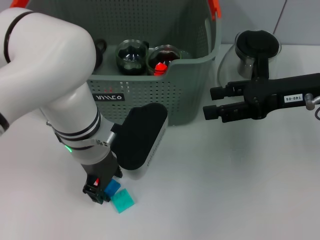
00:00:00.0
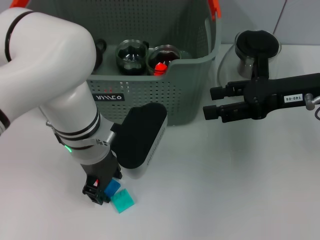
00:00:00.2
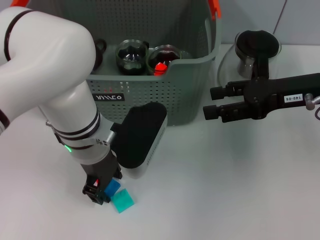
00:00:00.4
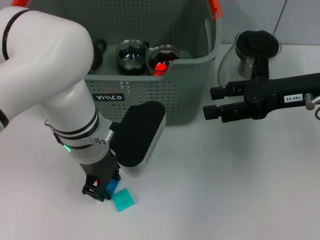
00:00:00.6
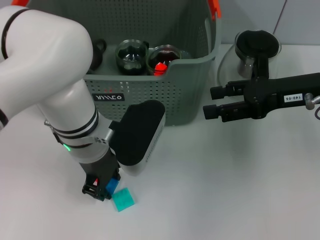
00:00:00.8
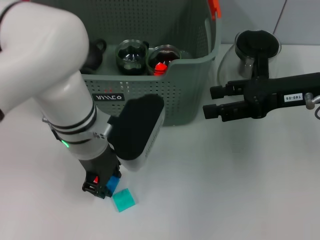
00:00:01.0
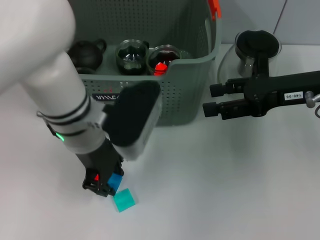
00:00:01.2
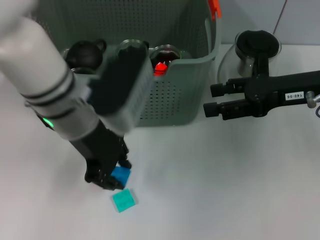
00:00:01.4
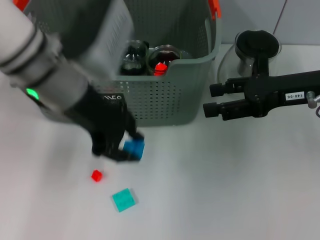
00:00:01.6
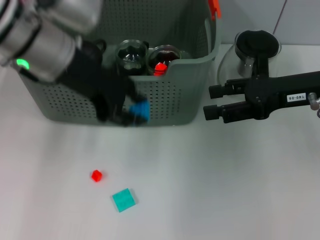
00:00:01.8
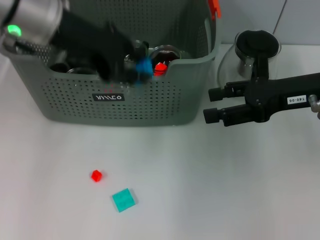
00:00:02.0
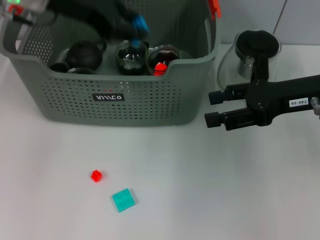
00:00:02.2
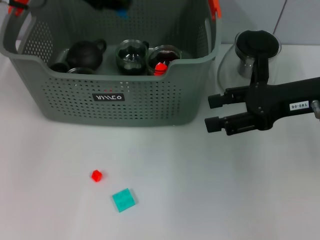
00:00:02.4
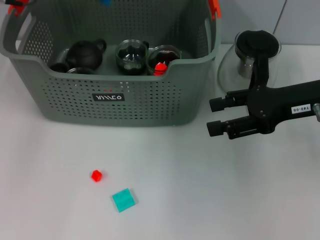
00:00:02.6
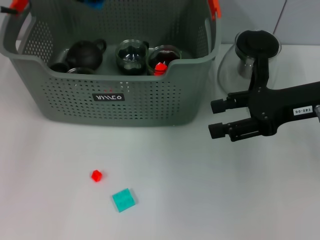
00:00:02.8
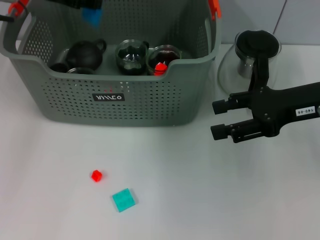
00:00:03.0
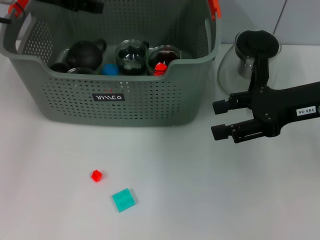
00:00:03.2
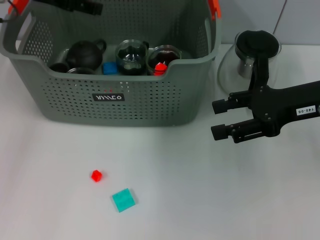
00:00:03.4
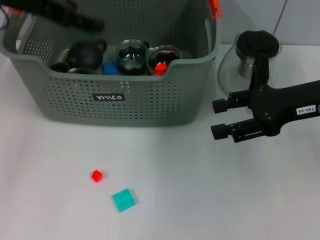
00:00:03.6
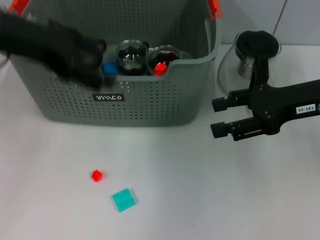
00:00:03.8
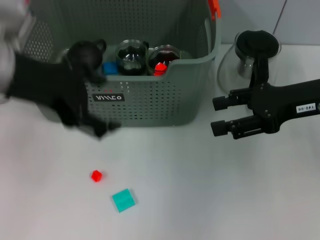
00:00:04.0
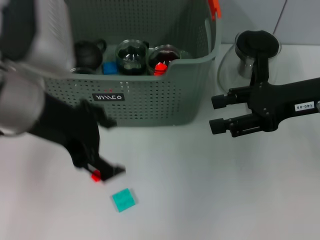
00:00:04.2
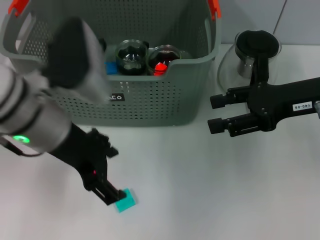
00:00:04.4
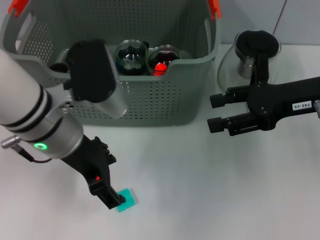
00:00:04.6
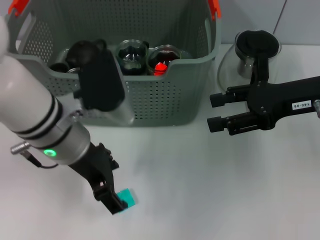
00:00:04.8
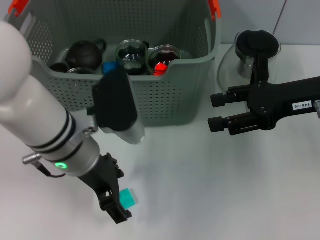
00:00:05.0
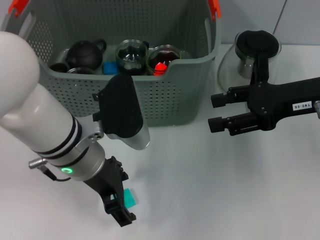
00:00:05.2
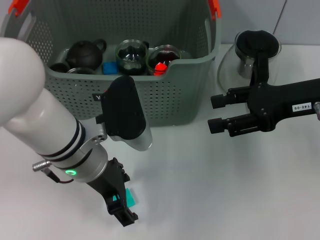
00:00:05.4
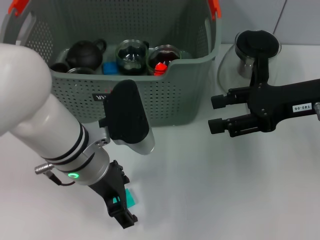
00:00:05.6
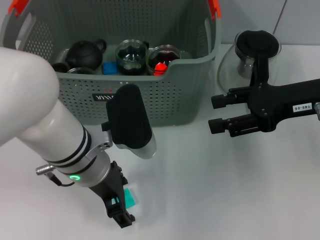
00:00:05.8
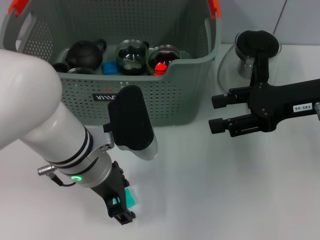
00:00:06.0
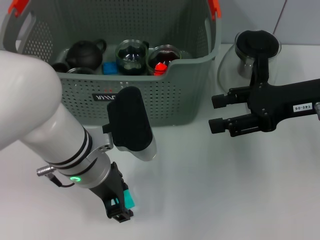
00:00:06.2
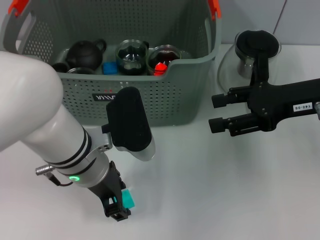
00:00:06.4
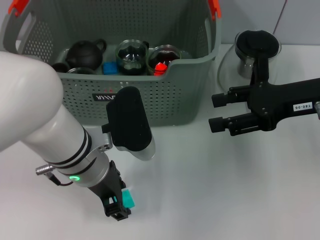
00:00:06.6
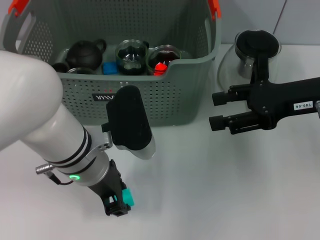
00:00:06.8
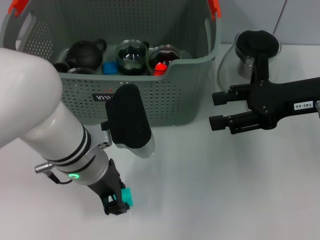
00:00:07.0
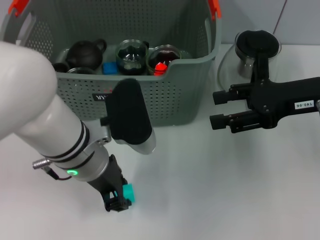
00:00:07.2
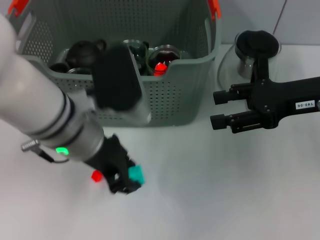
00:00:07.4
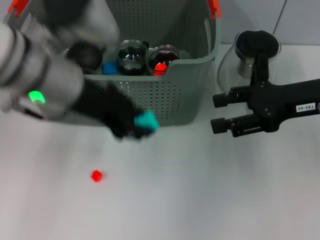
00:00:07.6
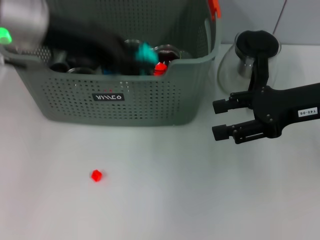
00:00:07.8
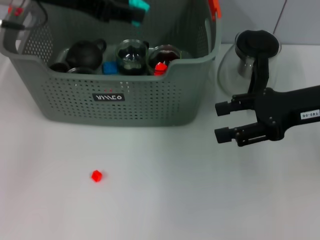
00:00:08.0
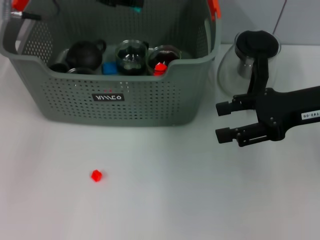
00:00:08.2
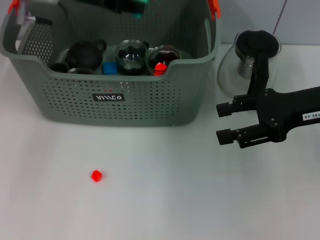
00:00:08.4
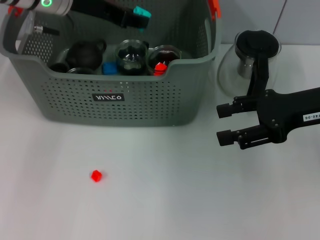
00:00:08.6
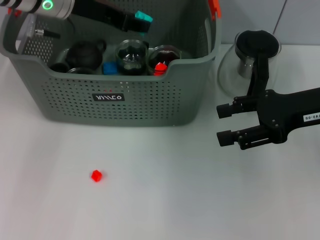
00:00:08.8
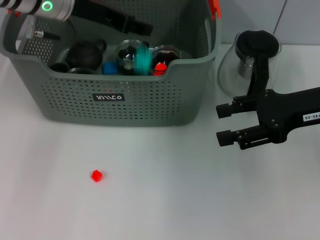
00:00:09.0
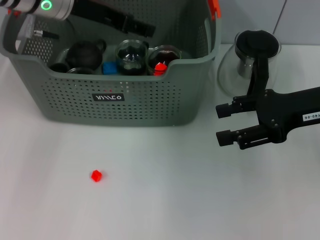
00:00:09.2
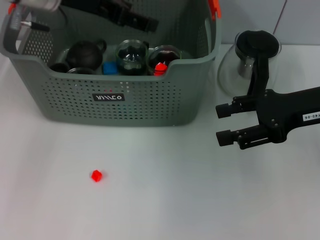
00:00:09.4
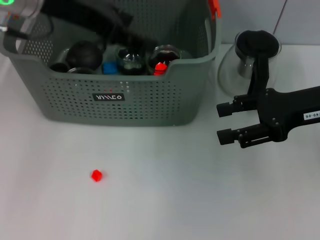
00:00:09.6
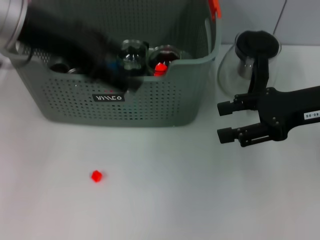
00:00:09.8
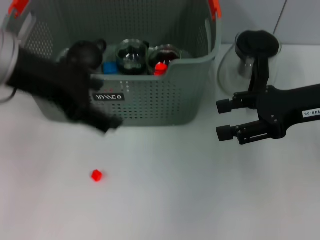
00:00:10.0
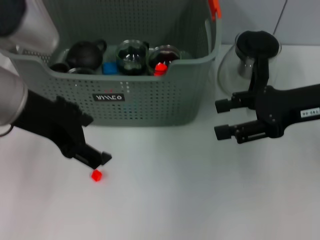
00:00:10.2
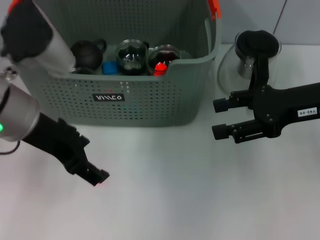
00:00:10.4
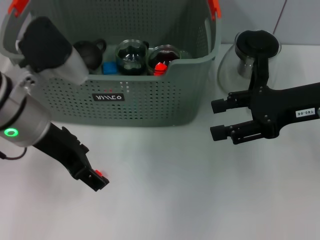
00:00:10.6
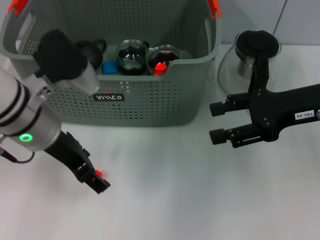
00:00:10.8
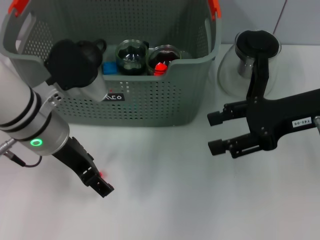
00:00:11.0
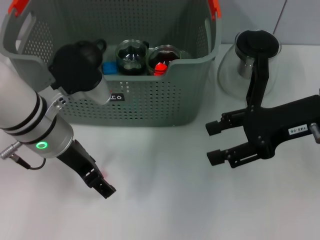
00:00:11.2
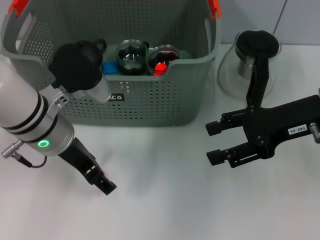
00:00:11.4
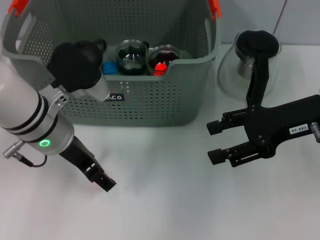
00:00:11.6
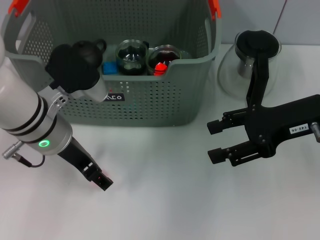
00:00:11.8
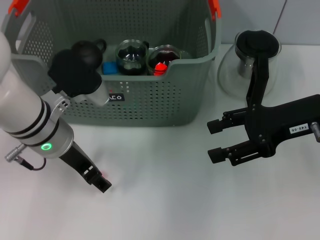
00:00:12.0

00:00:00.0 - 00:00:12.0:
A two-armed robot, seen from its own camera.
Task of the whole recording: pick up the teacup on the table and place it into the storage bin, pick up the block on the table and place it into the storage bin.
Step, 00:00:01.4 - 00:00:03.4: Place the dark blue block in the storage box with left gripper.
Step, 00:00:03.8 - 00:00:07.2: Grasp the light blue block with left gripper.
Step, 00:00:07.4 - 00:00:09.2: Place the light blue block in the storage box with left gripper.
00:00:00.0 - 00:00:01.6: The left gripper shifts about 10 cm upward.
00:00:01.6 - 00:00:03.0: The left gripper is displaced forward and to the left by roughly 15 cm.
00:00:03.0 - 00:00:04.4: The left gripper goes approximately 20 cm backward and to the right, and opens up.
00:00:04.4 - 00:00:06.0: The left gripper goes about 10 cm downward.
00:00:06.0 - 00:00:07.6: The left gripper moves upward, roughly 10 cm, and closes up.
00:00:07.6 - 00:00:09.0: The left gripper heads forward, covering roughly 15 cm.
00:00:09.0 - 00:00:10.4: The left gripper heads backward, covering approximately 15 cm, and opens its fingers.
00:00:10.4 - 00:00:12.0: The left gripper goes some 10 cm downward.

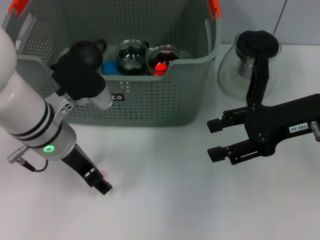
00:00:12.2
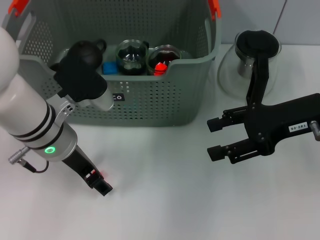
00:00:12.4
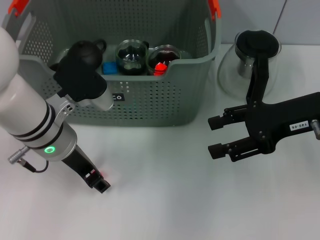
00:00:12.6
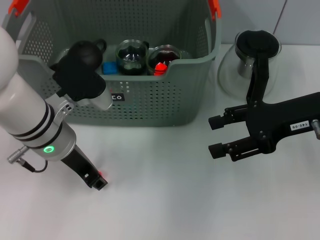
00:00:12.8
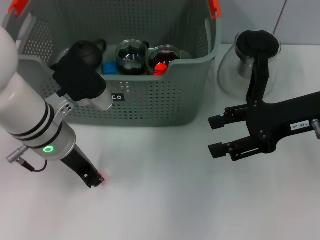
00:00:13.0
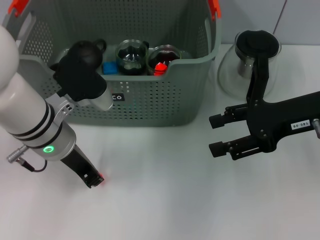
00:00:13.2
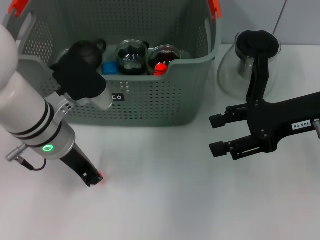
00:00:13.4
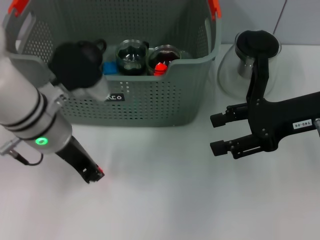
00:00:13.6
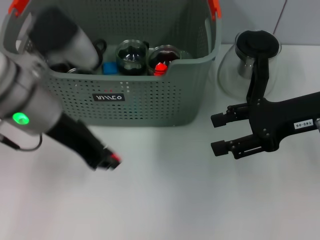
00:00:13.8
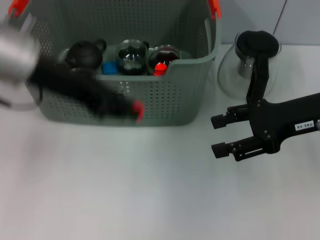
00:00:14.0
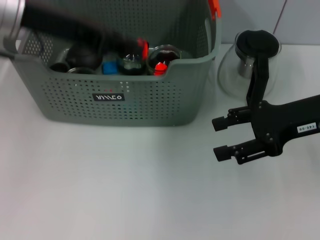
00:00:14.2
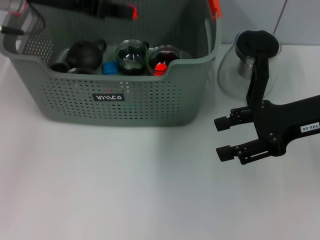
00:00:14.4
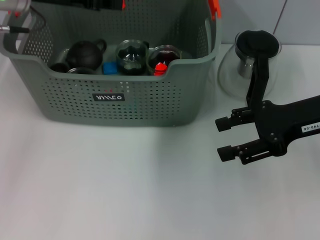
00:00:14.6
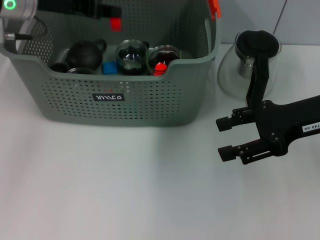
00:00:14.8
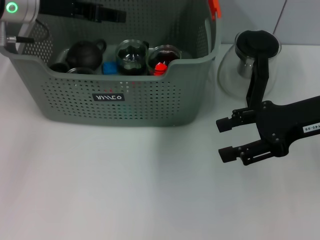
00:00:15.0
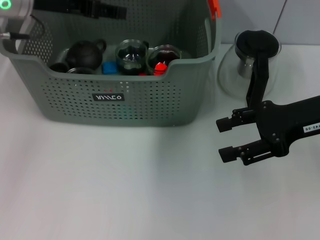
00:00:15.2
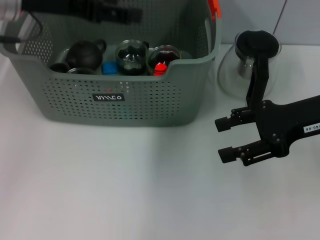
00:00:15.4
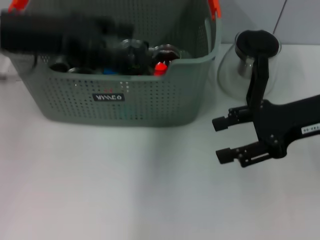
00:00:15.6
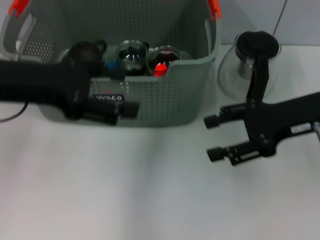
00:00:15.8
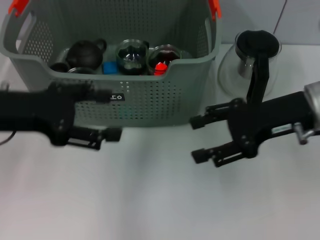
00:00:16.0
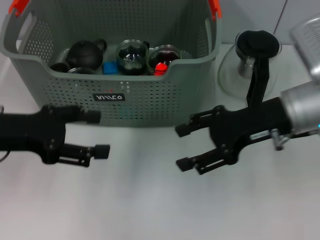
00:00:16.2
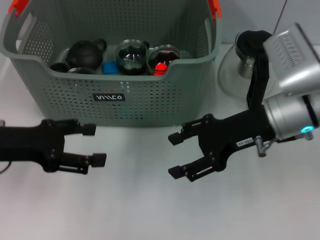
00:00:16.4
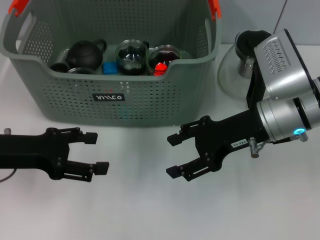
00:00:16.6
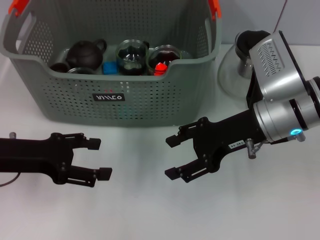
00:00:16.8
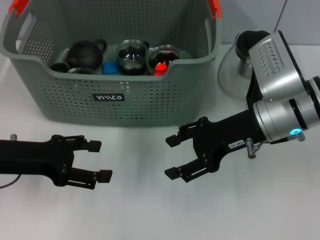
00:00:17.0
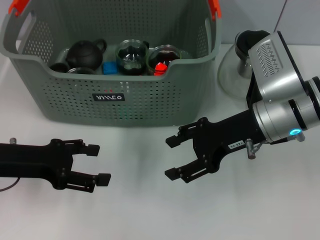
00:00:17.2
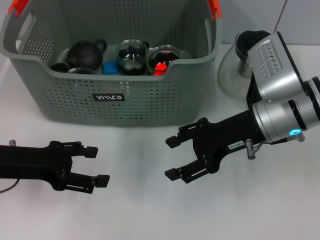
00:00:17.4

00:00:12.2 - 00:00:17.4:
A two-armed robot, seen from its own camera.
Task of the whole recording: pick up the teacup on the table and place it into the storage bin, pick up the block on the table and place it into the storage bin.
Step, 00:00:13.8 - 00:00:15.0: Place the orange block in the storage box with left gripper.
00:00:12.2 - 00:00:14.0: The left gripper shifts roughly 15 cm upward, and closes up.
00:00:14.0 - 00:00:15.6: The left gripper goes forward and returns, some 10 cm each way, and opens.
00:00:15.6 - 00:00:17.4: The left gripper goes some 15 cm downward. The right gripper heads to the left, covering about 10 cm.
